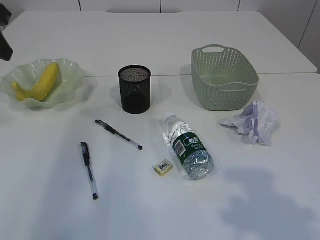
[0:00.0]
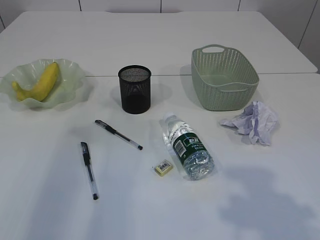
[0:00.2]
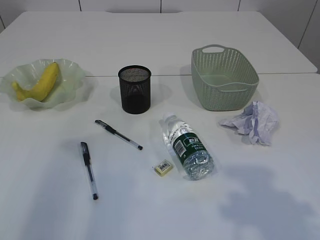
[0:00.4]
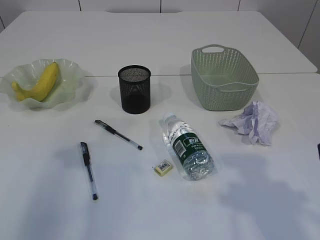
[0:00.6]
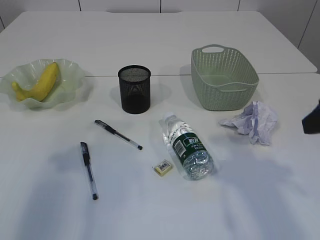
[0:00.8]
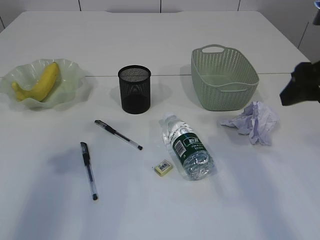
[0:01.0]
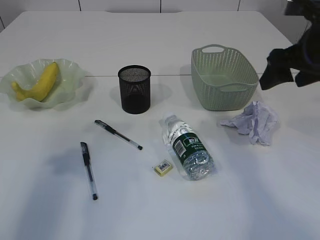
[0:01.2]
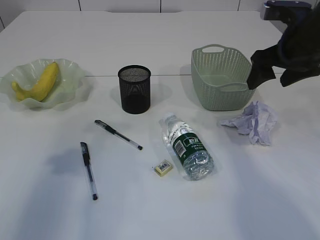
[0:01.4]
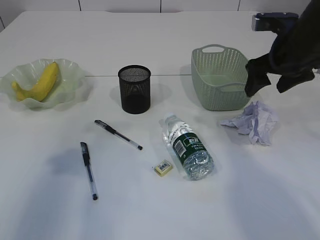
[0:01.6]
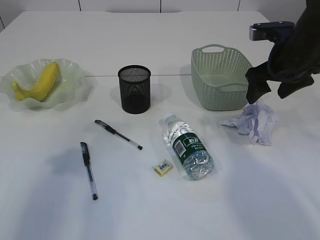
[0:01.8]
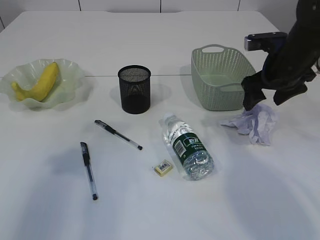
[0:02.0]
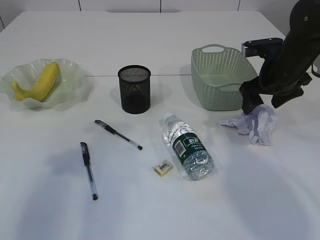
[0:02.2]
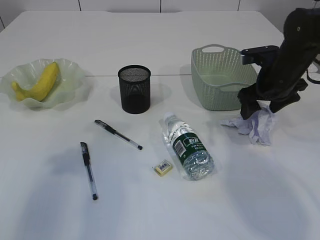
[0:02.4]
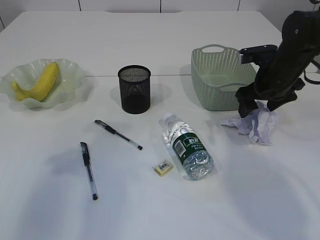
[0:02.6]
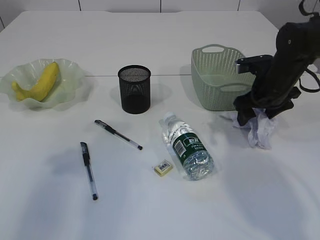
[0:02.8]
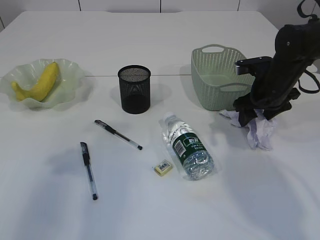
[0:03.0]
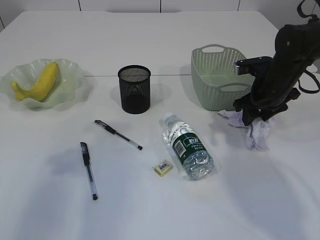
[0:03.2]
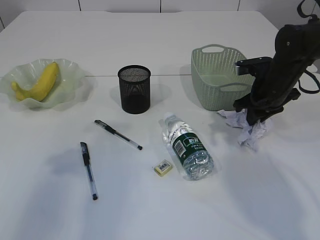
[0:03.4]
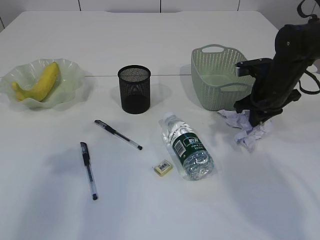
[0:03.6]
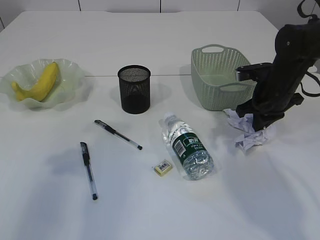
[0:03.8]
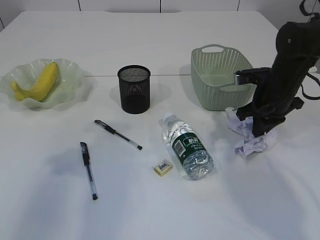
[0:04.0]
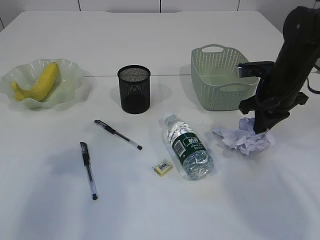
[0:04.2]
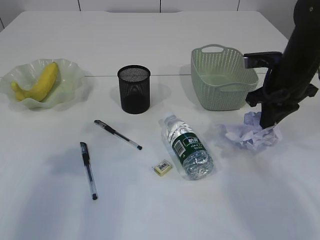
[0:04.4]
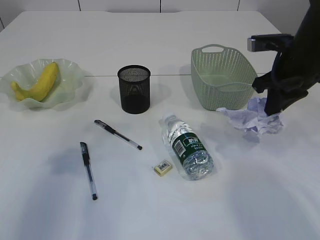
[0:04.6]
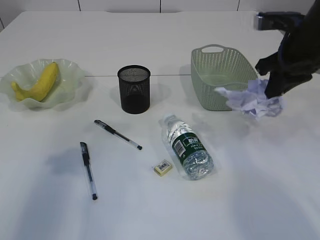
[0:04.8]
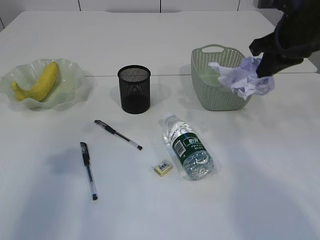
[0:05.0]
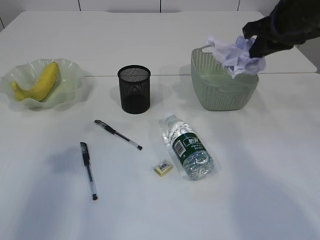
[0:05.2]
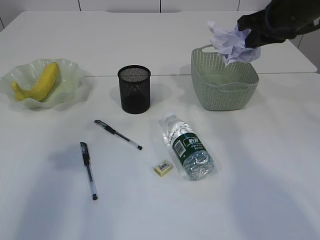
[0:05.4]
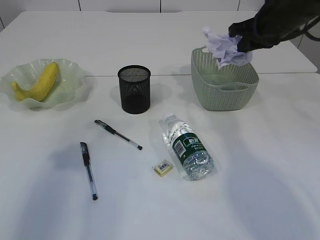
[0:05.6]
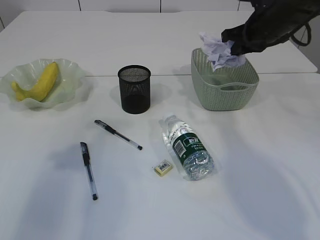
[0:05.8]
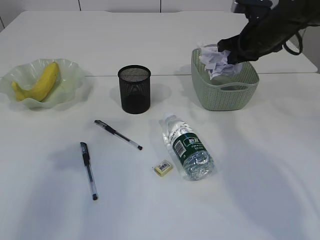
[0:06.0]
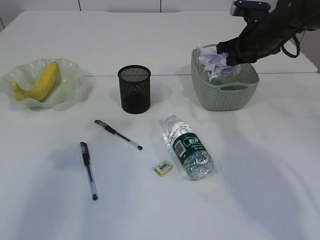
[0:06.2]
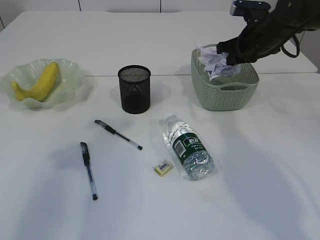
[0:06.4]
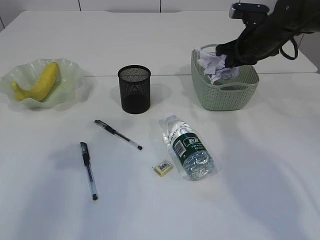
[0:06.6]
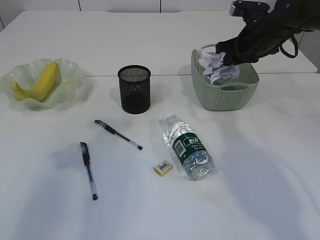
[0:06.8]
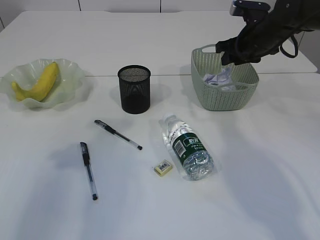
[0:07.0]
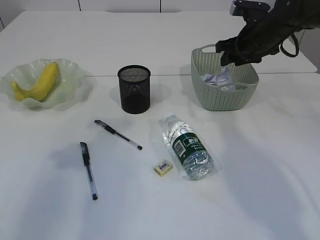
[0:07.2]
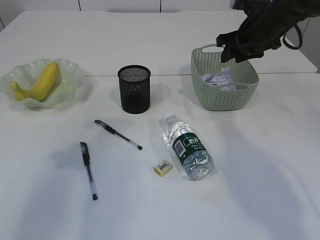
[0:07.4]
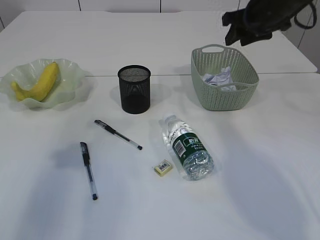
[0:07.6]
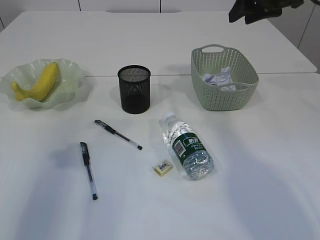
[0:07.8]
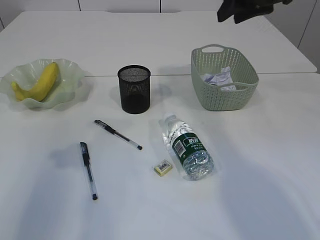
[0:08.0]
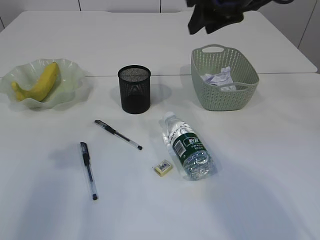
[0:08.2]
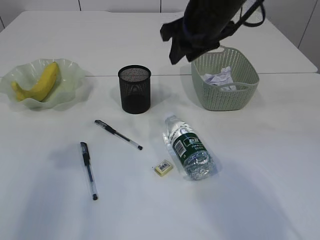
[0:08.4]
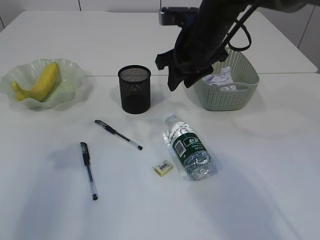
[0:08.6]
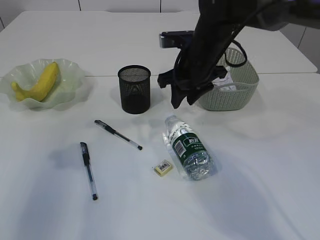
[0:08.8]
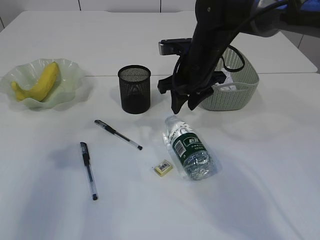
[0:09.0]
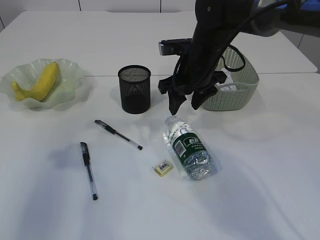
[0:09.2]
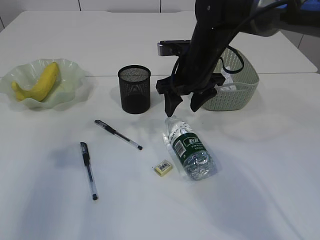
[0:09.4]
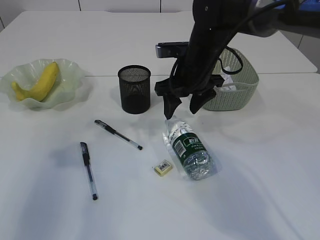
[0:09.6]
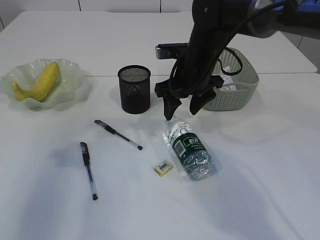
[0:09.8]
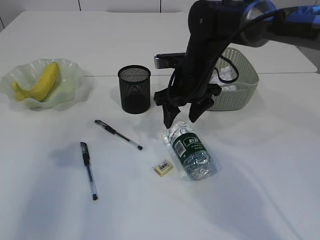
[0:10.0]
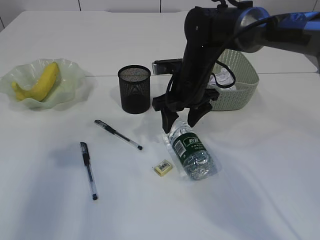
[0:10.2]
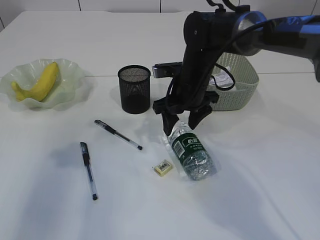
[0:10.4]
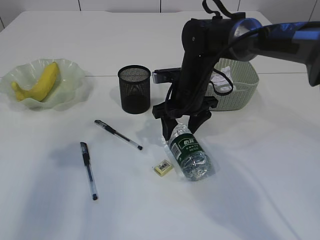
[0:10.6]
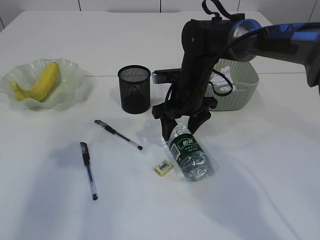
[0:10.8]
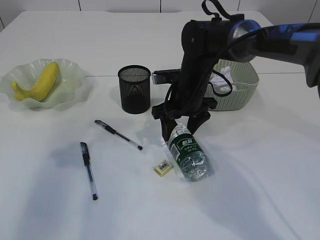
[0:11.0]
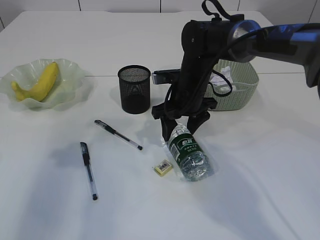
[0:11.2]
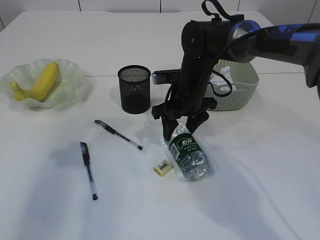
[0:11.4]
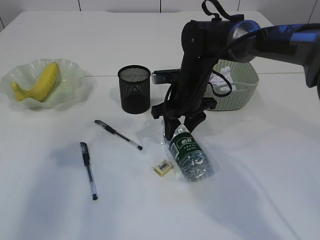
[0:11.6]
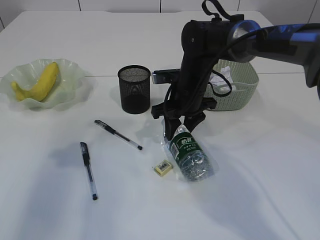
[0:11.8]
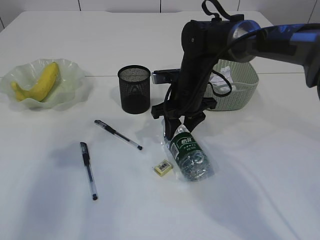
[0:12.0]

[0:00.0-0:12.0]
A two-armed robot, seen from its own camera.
Step, 0:00.0 to 0:04.6: Pick up the waste paper.
Step, 0:04.8 to 0:07.6: Place the waste paper in the basket.
0:00.0 to 0:01.6: The left gripper shifts some 10 cm backward, and opens up. The right gripper goes about 25 cm forward.
0:01.6 to 0:03.0: The right gripper goes some 10 cm downward.
0:03.0 to 0:04.4: The right gripper goes approximately 5 cm upward, and closes.
0:04.4 to 0:06.0: The right gripper travels forward by about 10 cm.
0:06.0 to 0:07.6: The right gripper shifts some 5 cm upward, and opens its fingers.
0:07.6 to 0:09.0: The right gripper is displaced to the left and downward by approximately 15 cm.
0:09.0 to 0:10.4: The right gripper opens up.
0:10.4 to 0:12.0: The right gripper closes its fingers.

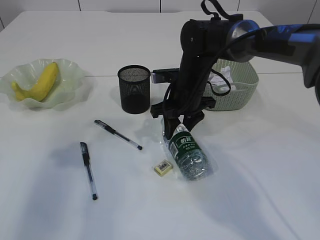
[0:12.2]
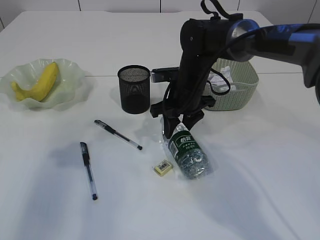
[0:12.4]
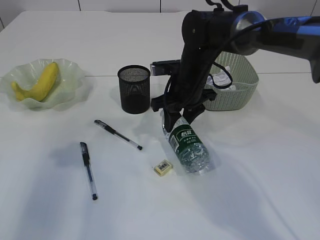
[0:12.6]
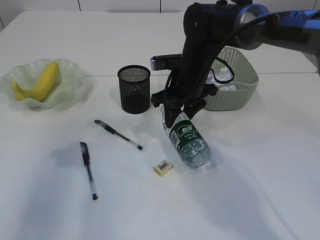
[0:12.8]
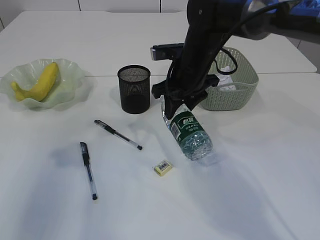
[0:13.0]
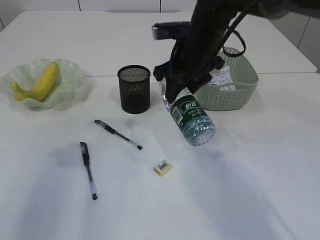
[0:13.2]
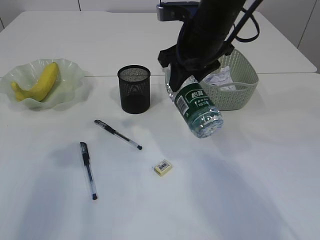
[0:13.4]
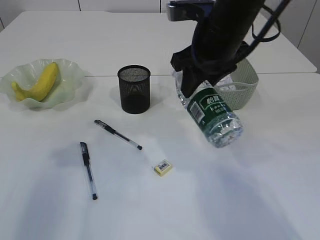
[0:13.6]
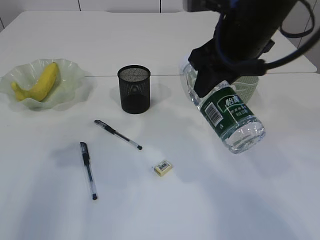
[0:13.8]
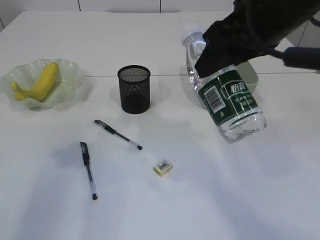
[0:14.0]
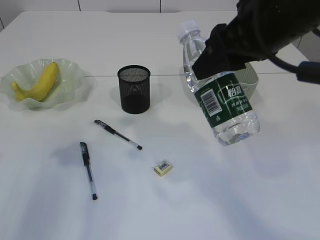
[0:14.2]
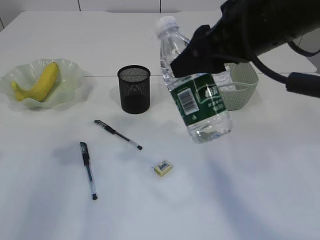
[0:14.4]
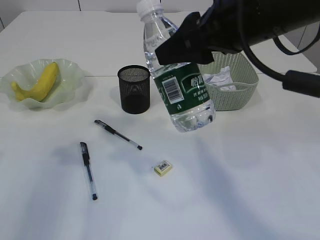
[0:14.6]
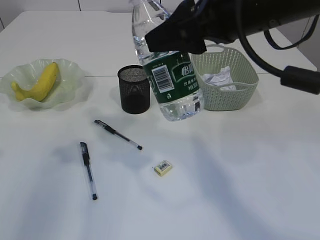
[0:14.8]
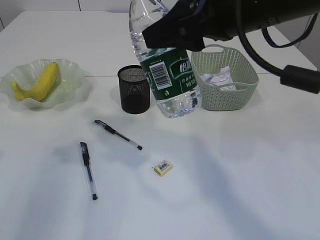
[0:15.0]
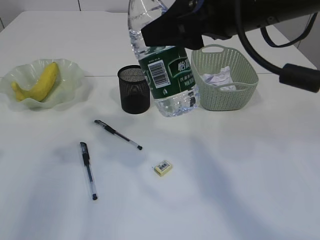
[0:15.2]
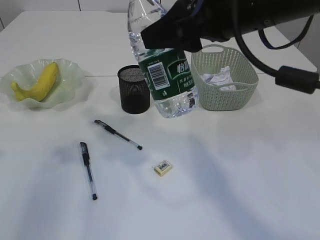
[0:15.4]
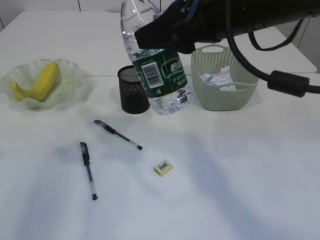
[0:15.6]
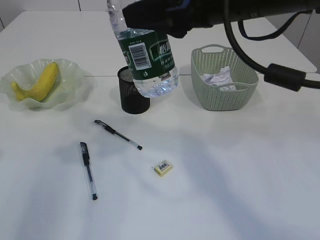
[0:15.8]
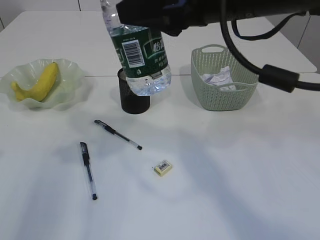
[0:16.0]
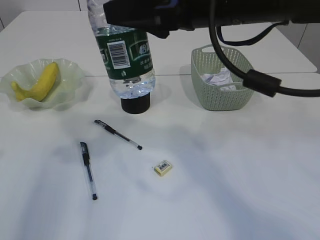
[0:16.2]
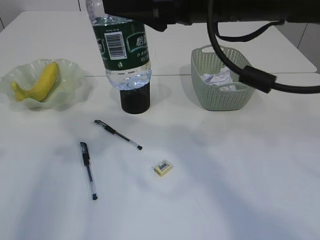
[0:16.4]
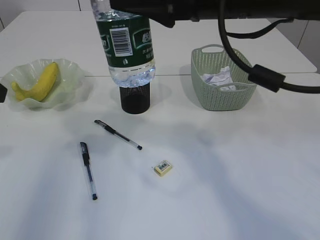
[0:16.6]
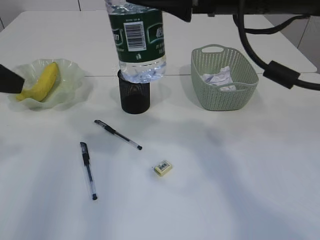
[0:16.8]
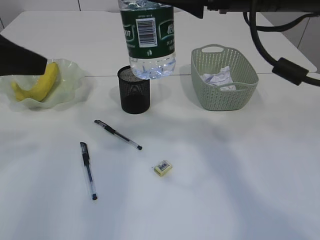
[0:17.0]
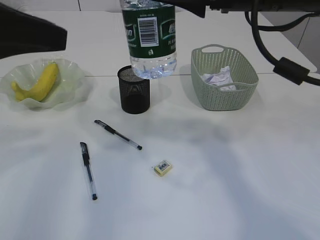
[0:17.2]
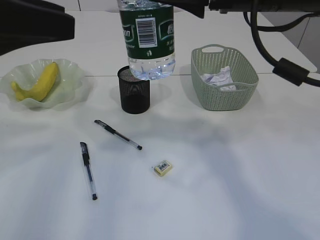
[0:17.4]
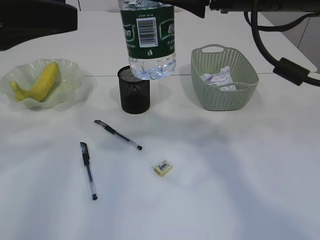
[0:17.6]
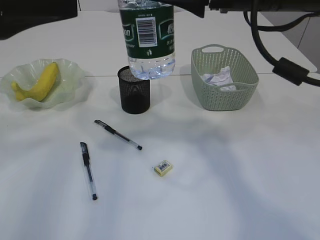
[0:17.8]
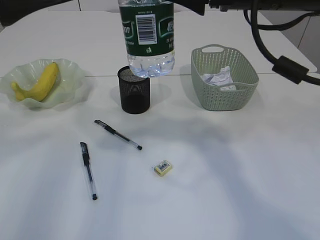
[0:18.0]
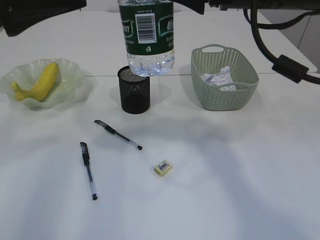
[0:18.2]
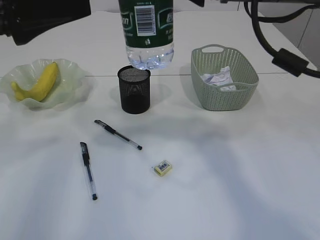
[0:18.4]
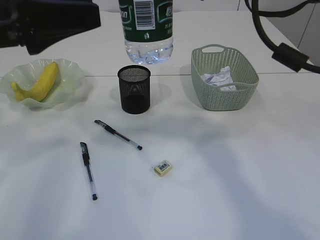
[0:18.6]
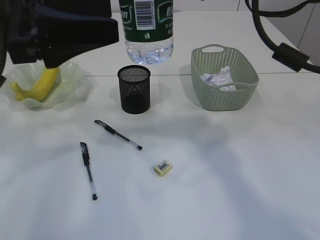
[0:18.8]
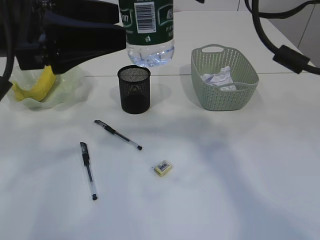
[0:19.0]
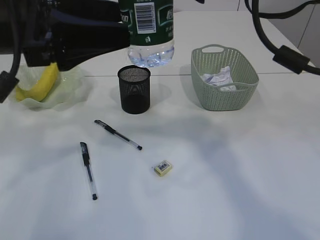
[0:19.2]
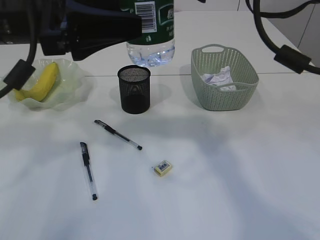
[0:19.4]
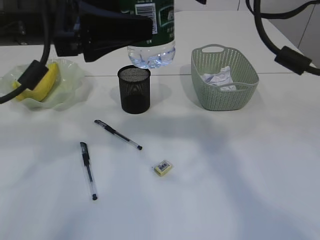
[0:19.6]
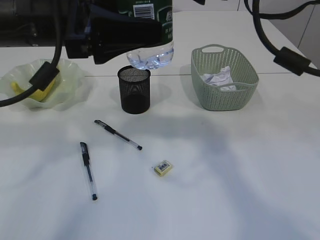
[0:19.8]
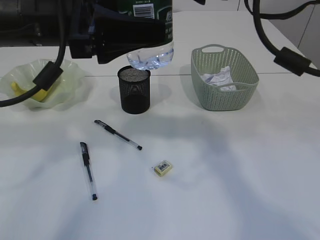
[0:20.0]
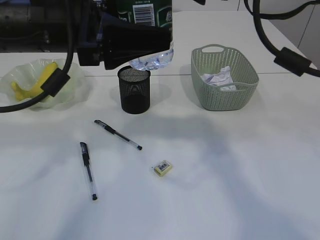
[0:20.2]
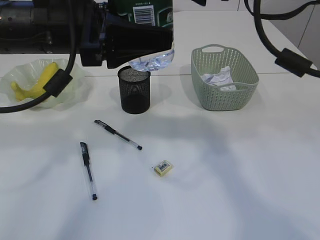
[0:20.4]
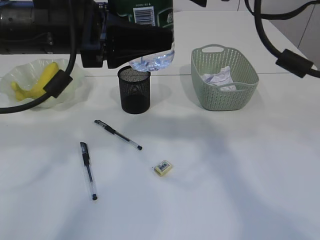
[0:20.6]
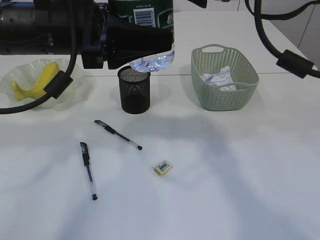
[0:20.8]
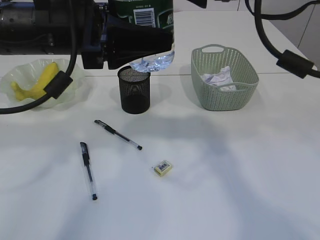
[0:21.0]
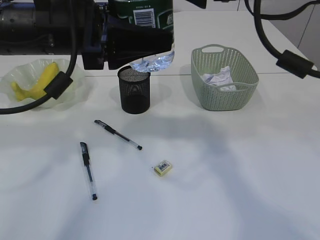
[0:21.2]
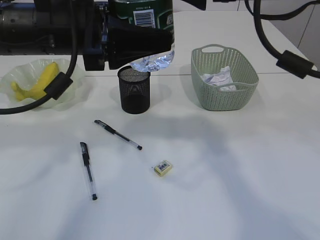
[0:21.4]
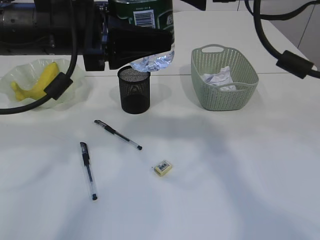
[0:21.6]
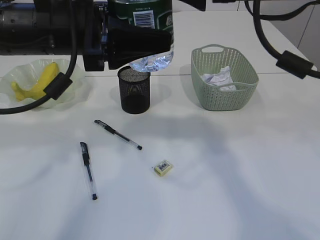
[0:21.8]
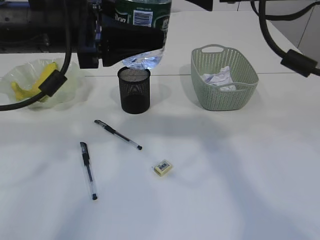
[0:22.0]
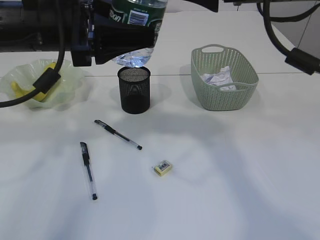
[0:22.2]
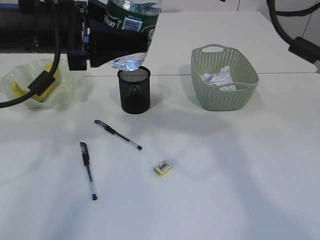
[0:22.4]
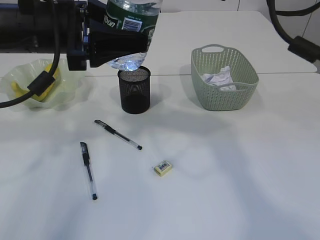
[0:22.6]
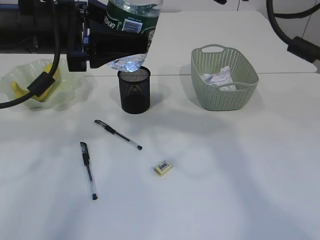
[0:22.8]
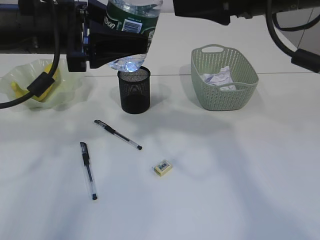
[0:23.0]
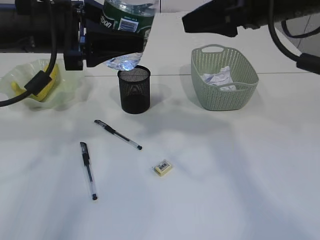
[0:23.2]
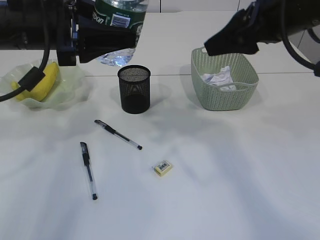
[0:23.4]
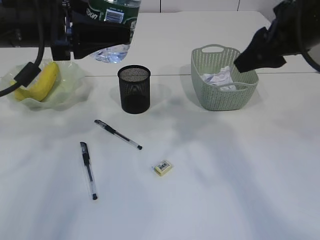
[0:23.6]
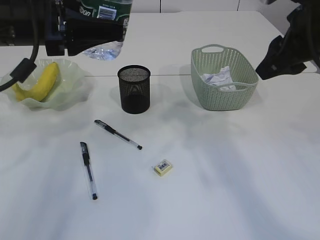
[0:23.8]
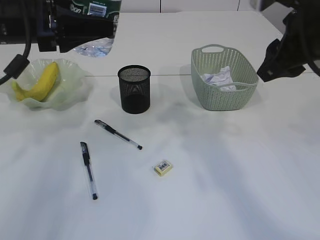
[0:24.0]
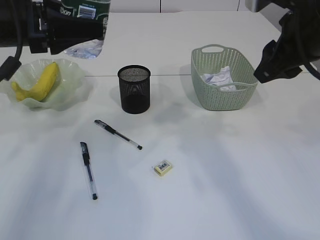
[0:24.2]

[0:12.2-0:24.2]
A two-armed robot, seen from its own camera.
Step, 0:13.4 to 0:23.0: transfer the bottle to the left arm.
0:12.2 to 0:13.8: The right gripper travels upward and backward by some 20 cm.
0:13.8 to 0:15.2: The right gripper shifts approximately 5 cm backward.
0:16.6 to 0:18.2: The left gripper moves to the right, approximately 5 cm.
0:18.2 to 0:19.8: The left gripper travels to the right by some 10 cm.
0:19.8 to 0:22.6: The grippers make only small movements.
0:22.6 to 0:24.2: The right gripper changes place by roughly 5 cm, while the left gripper travels to the left by approximately 5 cm.
